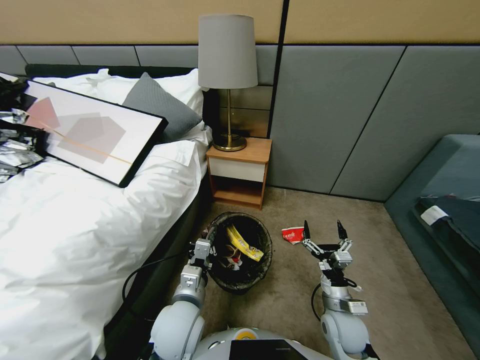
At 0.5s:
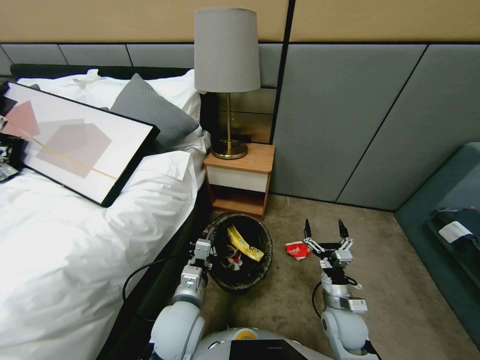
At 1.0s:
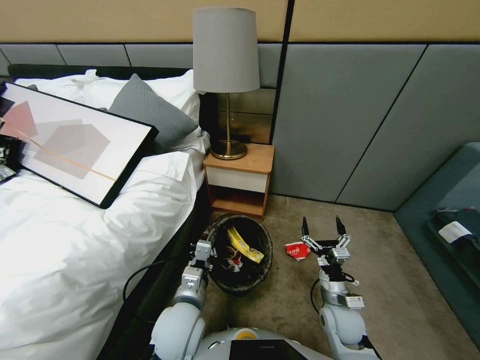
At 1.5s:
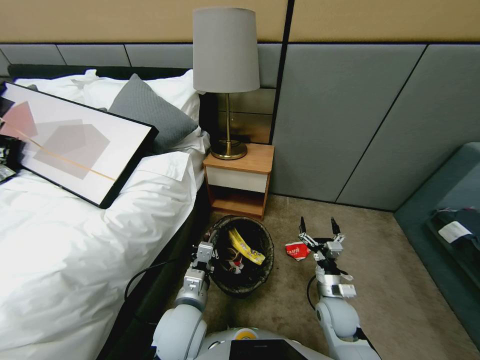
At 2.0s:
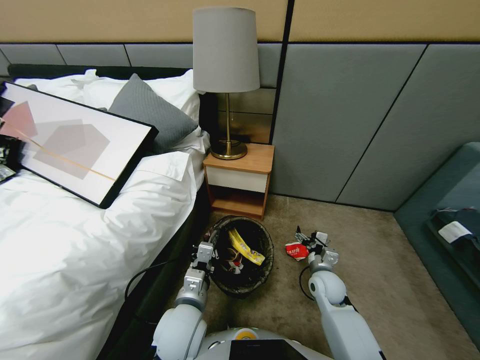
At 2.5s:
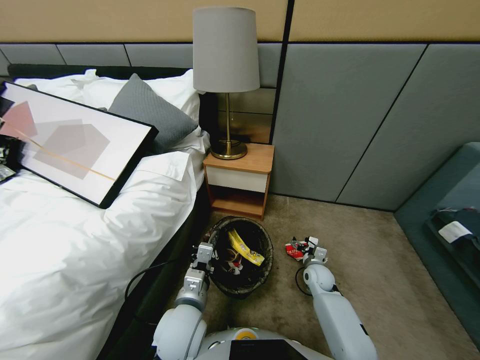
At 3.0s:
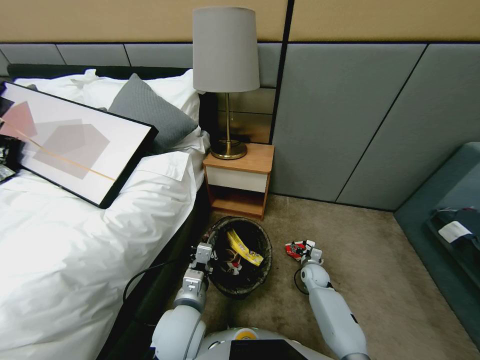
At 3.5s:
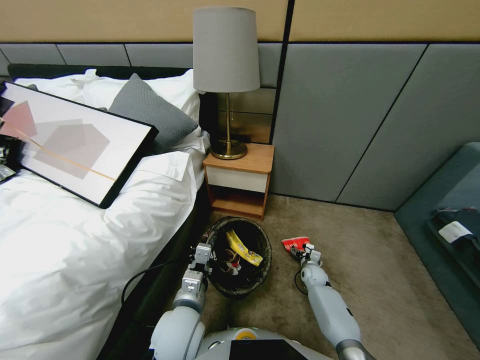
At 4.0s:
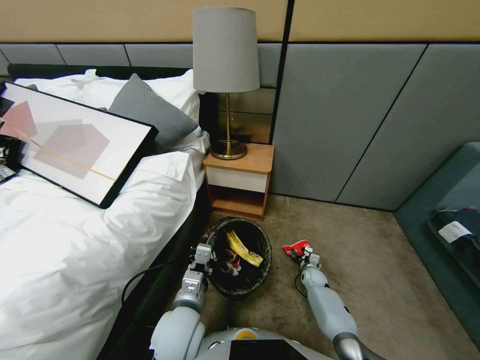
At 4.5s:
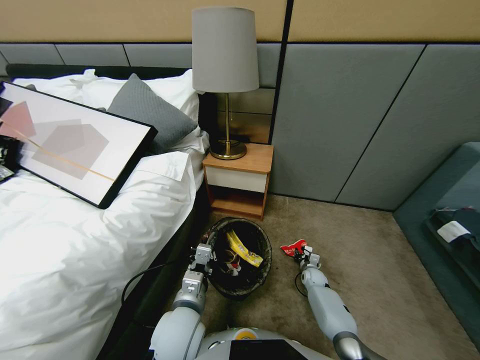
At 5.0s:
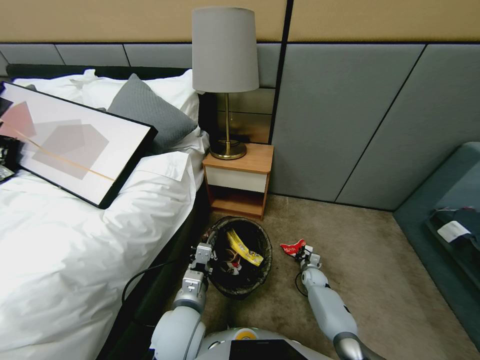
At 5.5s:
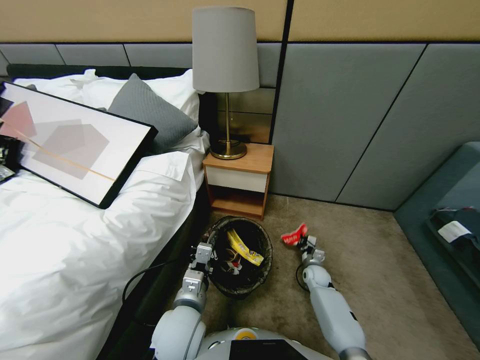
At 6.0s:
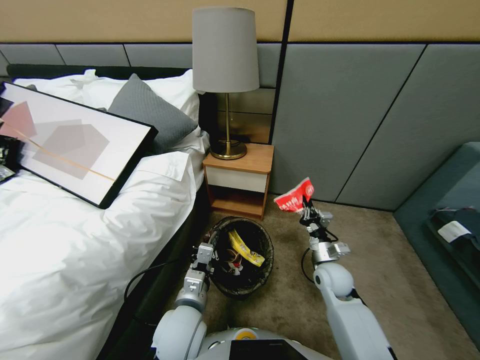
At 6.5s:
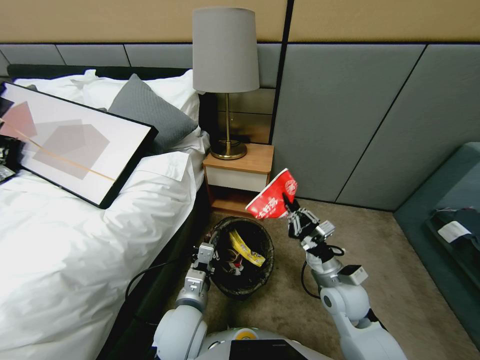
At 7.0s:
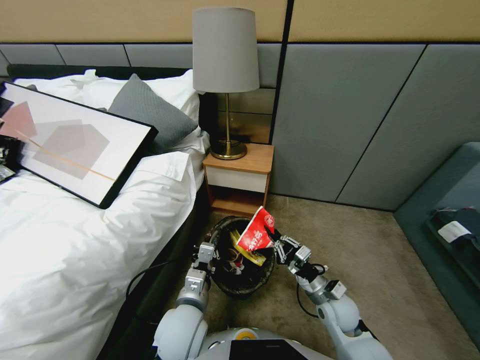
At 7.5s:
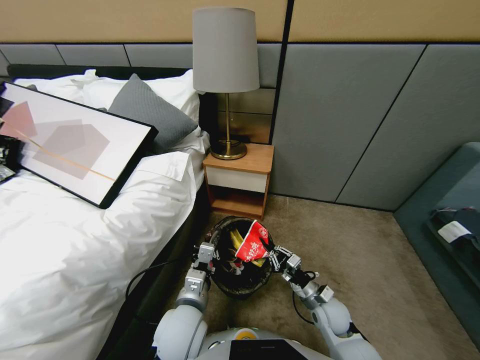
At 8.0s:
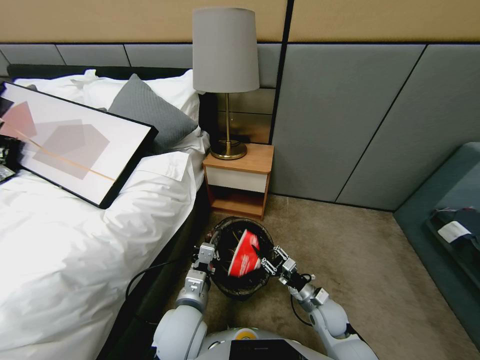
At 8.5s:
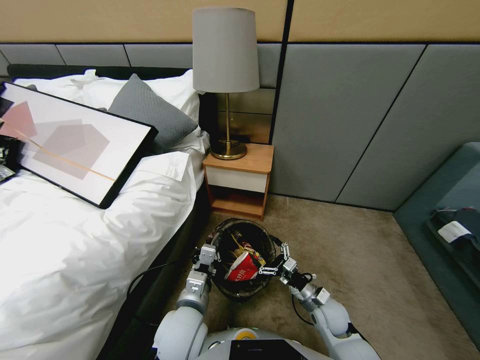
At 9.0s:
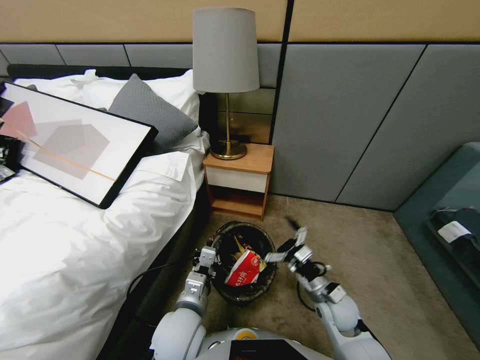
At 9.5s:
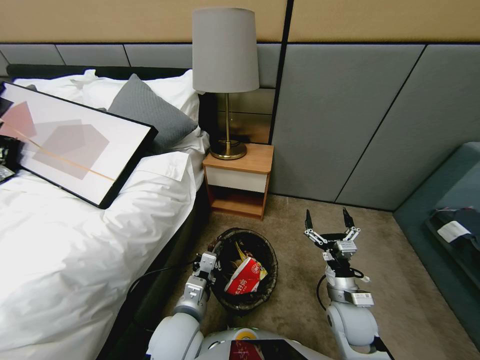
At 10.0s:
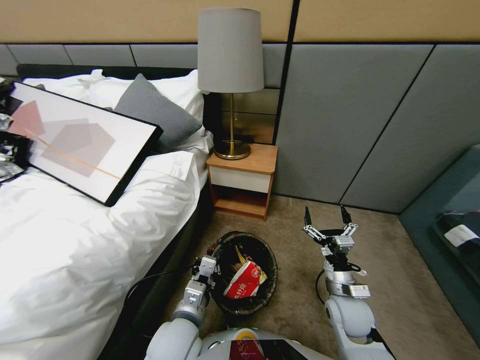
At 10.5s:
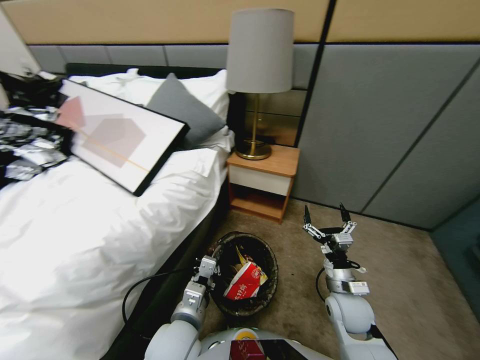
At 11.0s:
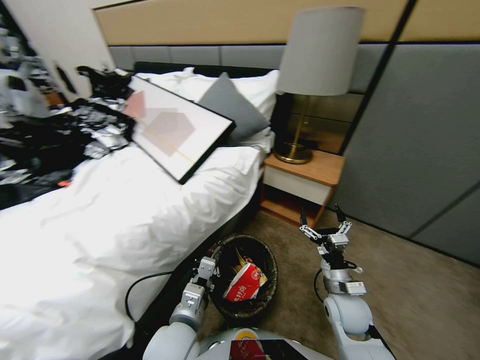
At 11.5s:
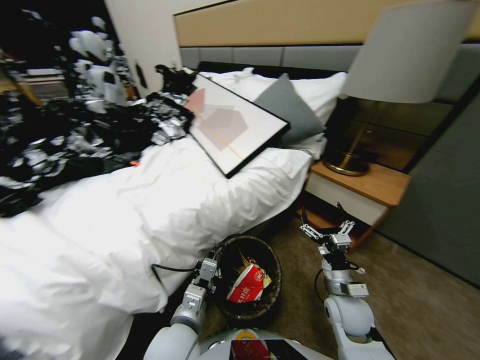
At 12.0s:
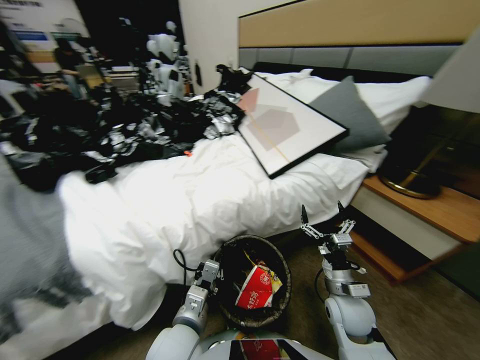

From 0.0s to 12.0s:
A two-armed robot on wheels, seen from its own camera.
Task of the whole recording: Pick up the trash bin, then pick up the garbage from the floor and place it into the trash bin.
From 0.0s to 2.0s: The right gripper travels forward by about 10 cm.
From 2.0s to 4.0s: The right gripper is displaced downward by some 20 cm.
From 4.0s to 6.0s: The right gripper shifts approximately 30 cm upward, and closes up.
From 6.0s to 8.0s: The right gripper goes about 15 cm downward, and opens.
From 8.0s to 10.0s: The right gripper is displaced upward by about 10 cm, and opens.

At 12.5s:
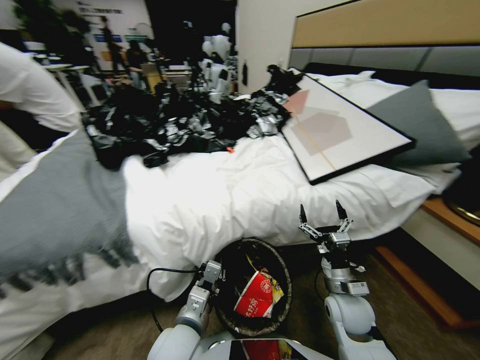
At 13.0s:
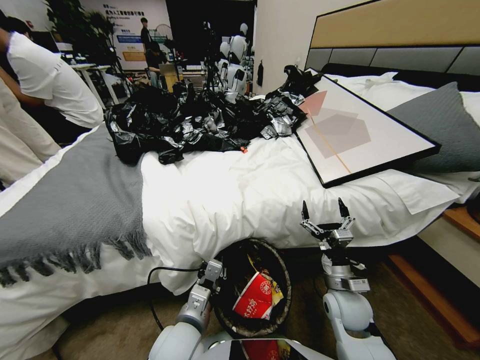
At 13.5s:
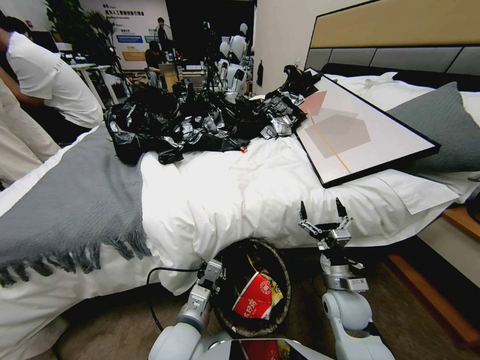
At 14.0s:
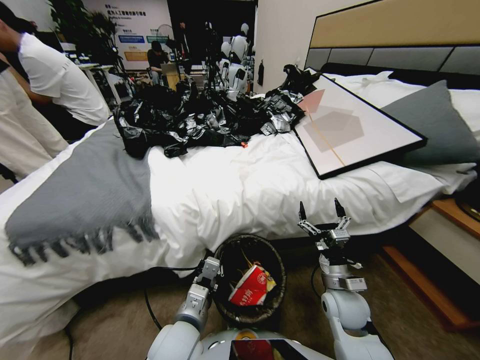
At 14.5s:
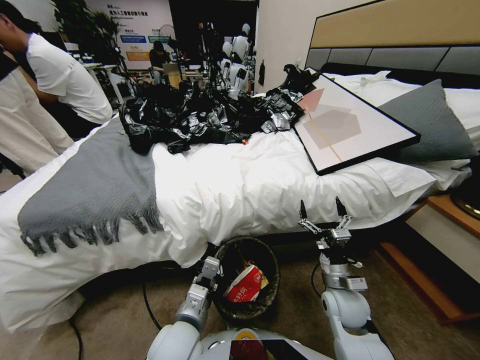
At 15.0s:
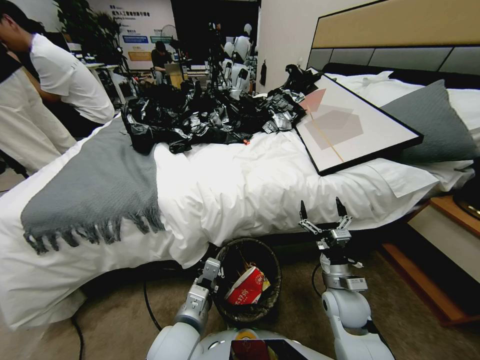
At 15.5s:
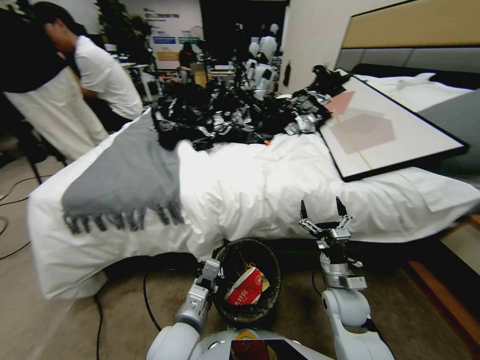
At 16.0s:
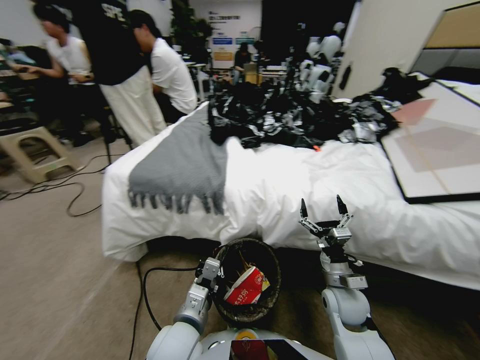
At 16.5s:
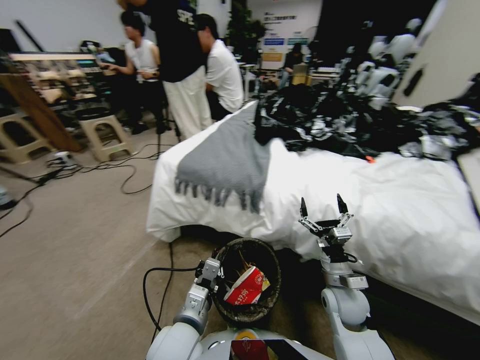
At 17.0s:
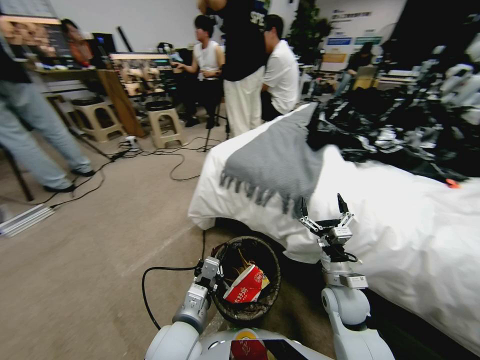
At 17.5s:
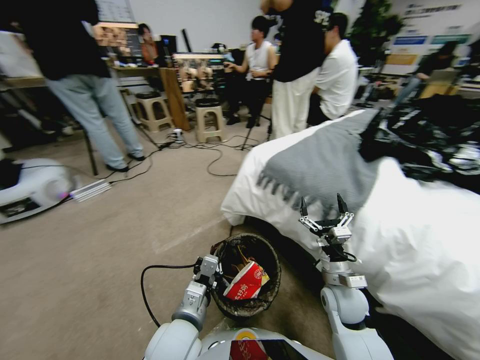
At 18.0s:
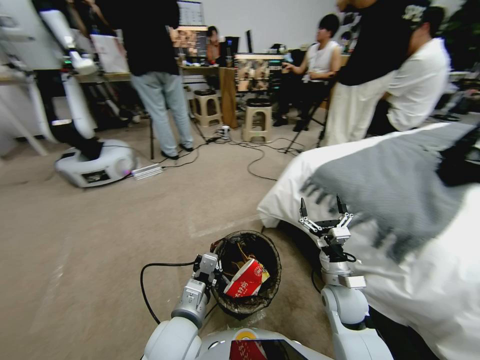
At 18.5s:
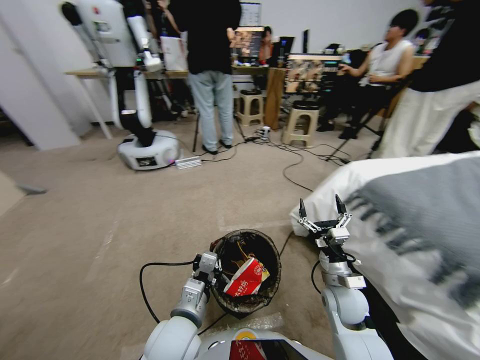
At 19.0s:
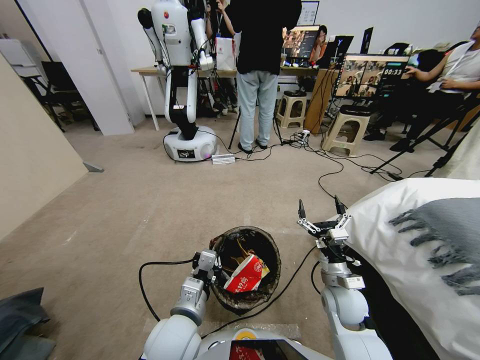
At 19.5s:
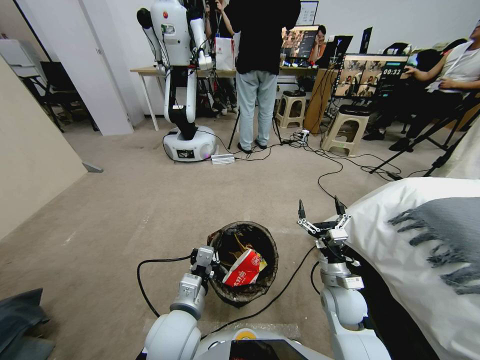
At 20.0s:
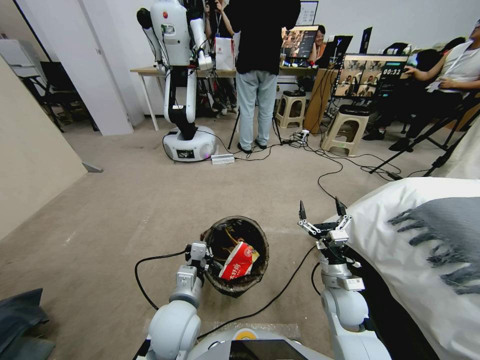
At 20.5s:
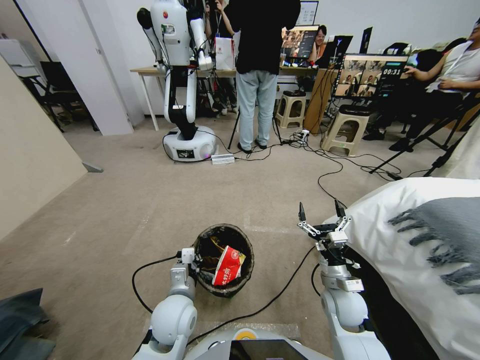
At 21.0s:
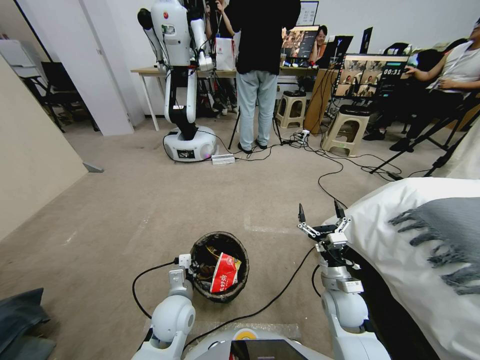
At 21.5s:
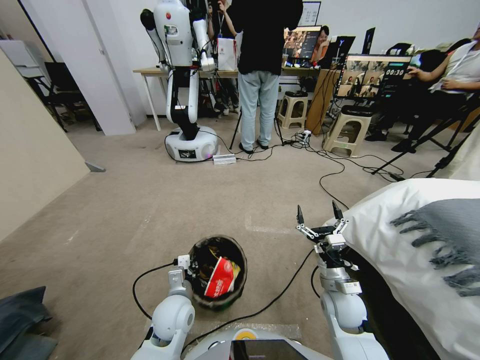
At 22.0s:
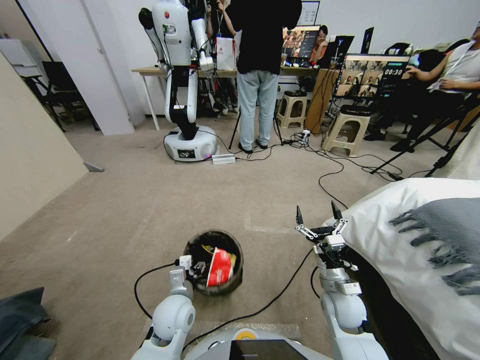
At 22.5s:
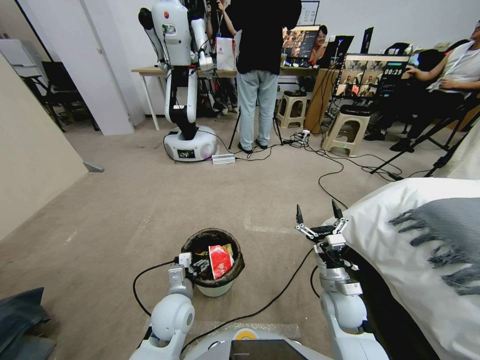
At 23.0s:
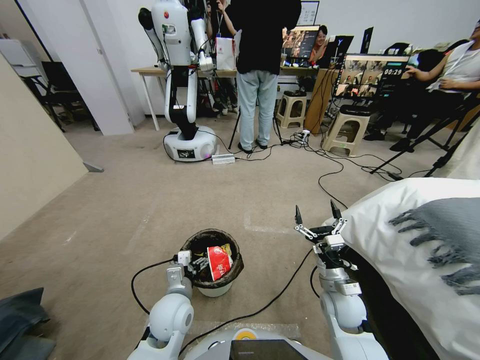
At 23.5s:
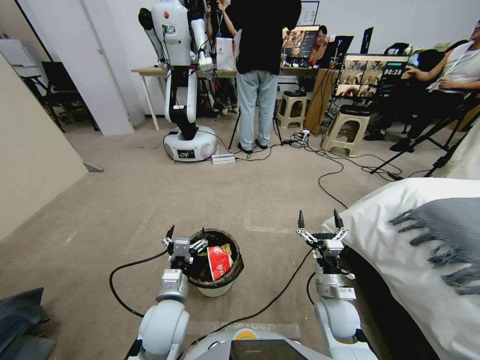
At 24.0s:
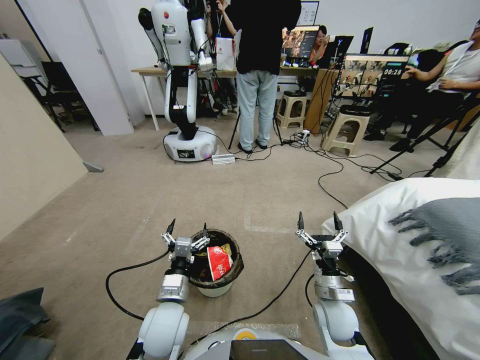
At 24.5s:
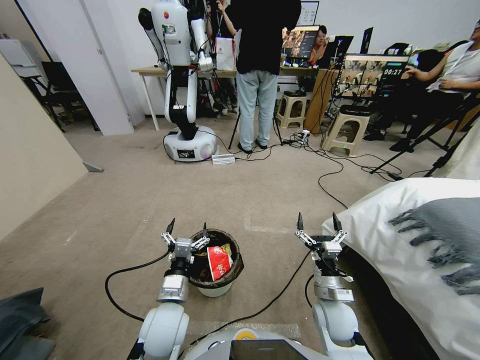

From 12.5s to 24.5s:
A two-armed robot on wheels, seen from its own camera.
Task of the whole recording: Pick up the trash bin, then pick up the garbage from the floor and place it into the trash bin.
From 18.5s to 20.5s: The left gripper is displaced downward and forward by approximately 10 cm.
From 20.5s to 22.5s: The left gripper opens.
